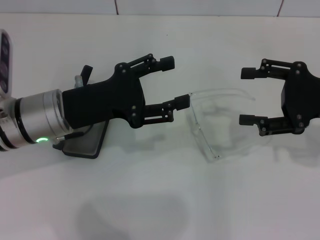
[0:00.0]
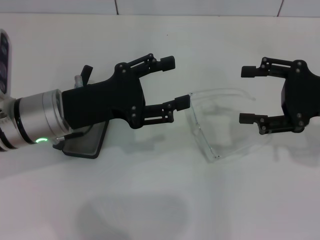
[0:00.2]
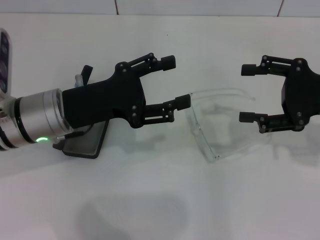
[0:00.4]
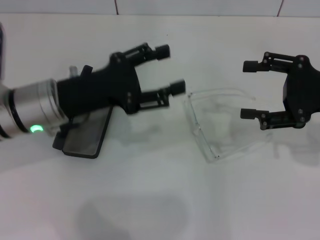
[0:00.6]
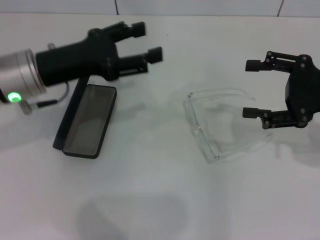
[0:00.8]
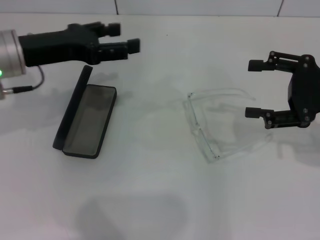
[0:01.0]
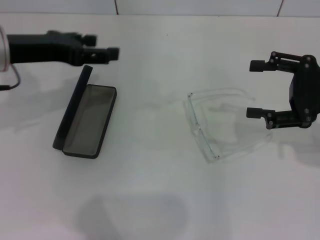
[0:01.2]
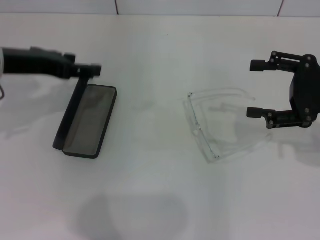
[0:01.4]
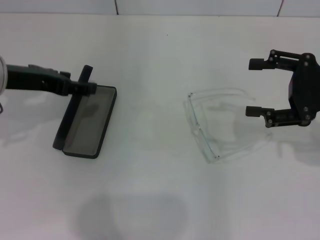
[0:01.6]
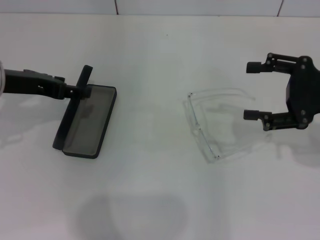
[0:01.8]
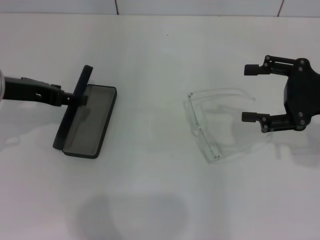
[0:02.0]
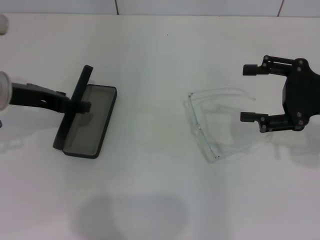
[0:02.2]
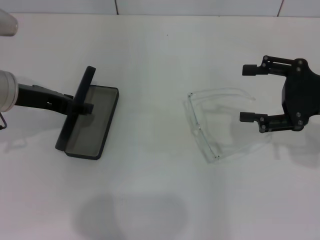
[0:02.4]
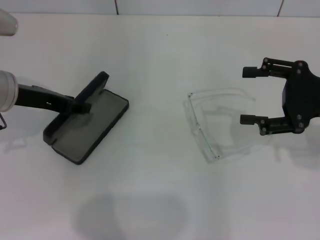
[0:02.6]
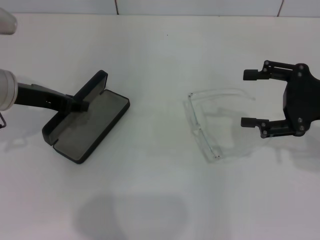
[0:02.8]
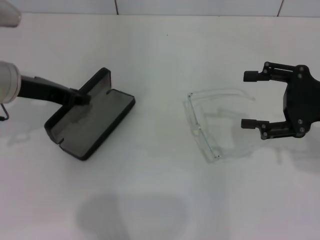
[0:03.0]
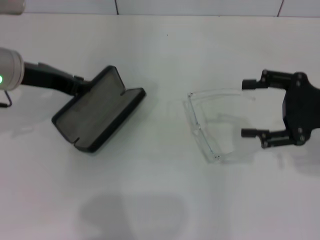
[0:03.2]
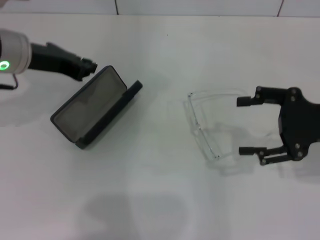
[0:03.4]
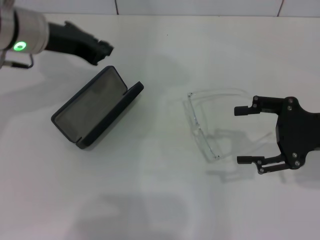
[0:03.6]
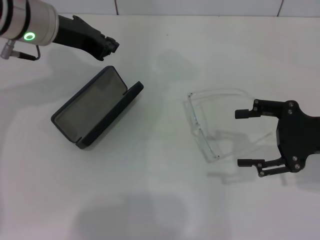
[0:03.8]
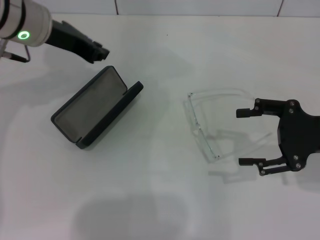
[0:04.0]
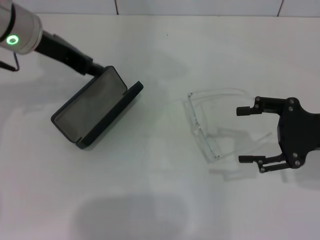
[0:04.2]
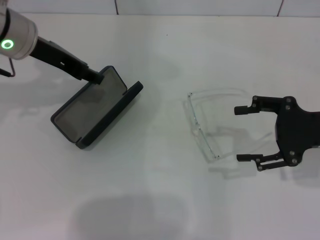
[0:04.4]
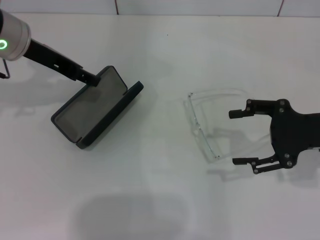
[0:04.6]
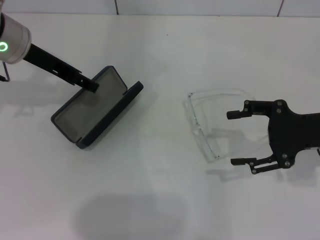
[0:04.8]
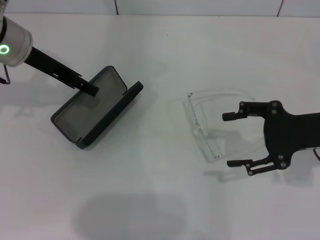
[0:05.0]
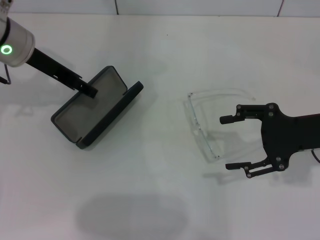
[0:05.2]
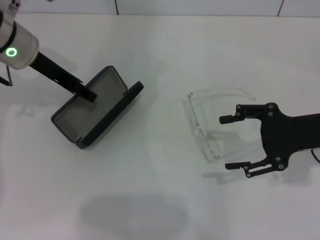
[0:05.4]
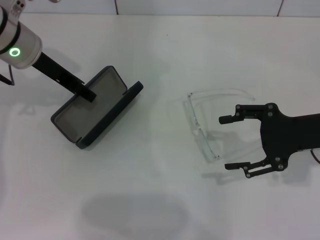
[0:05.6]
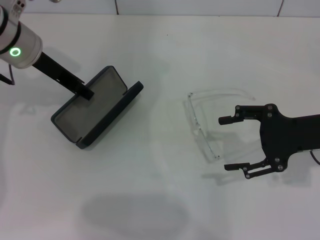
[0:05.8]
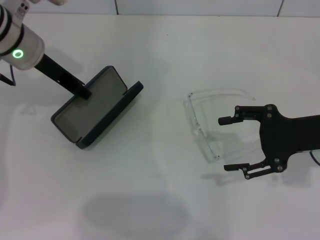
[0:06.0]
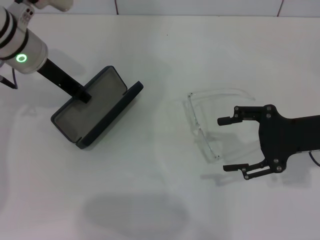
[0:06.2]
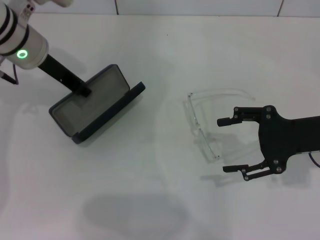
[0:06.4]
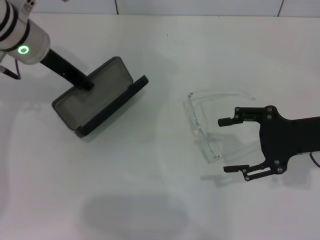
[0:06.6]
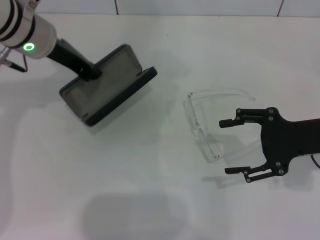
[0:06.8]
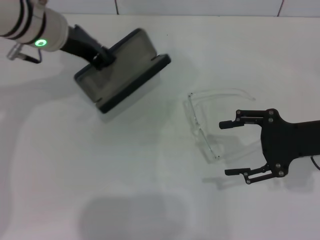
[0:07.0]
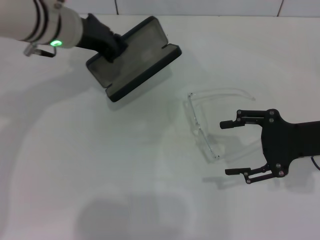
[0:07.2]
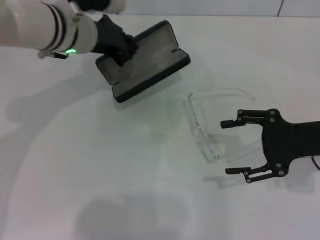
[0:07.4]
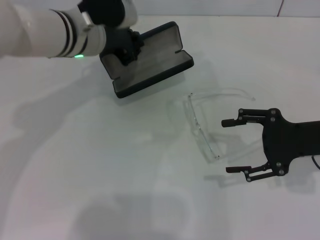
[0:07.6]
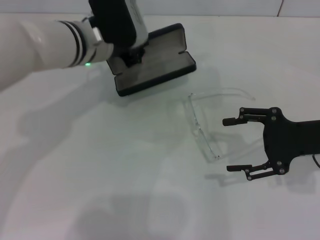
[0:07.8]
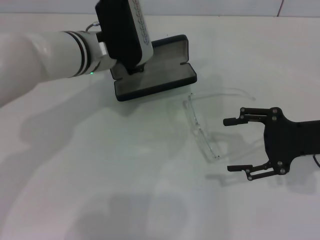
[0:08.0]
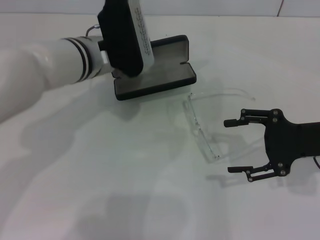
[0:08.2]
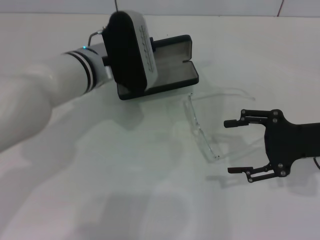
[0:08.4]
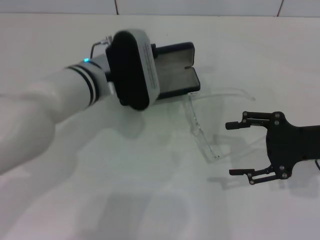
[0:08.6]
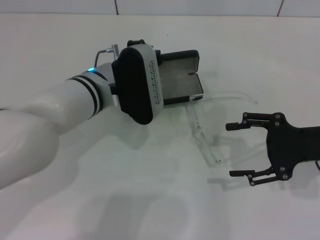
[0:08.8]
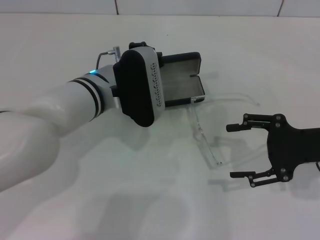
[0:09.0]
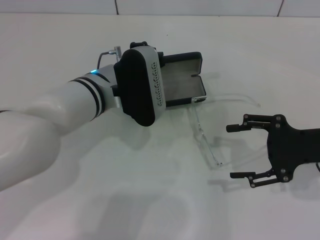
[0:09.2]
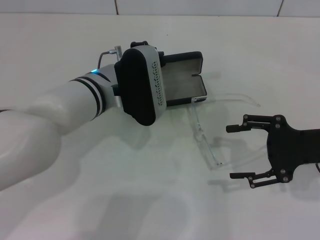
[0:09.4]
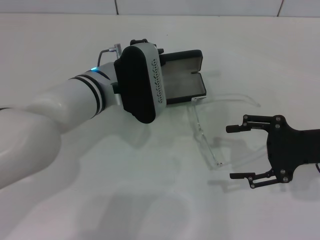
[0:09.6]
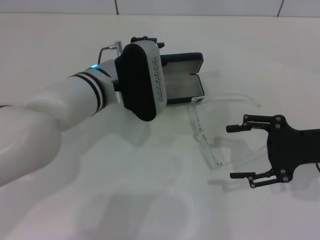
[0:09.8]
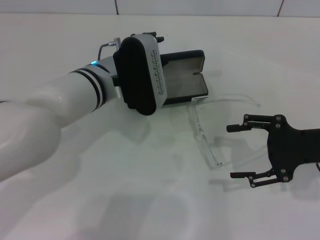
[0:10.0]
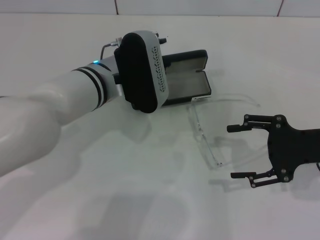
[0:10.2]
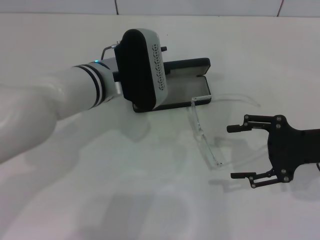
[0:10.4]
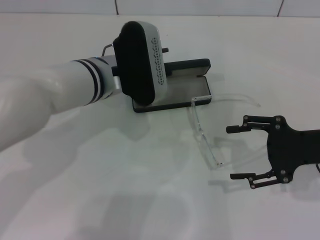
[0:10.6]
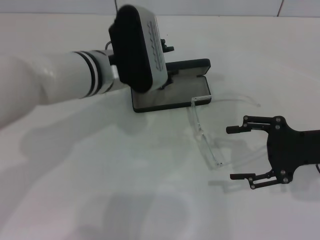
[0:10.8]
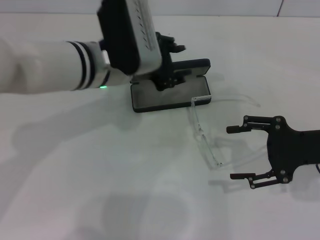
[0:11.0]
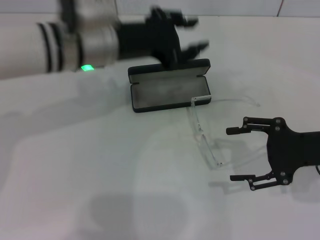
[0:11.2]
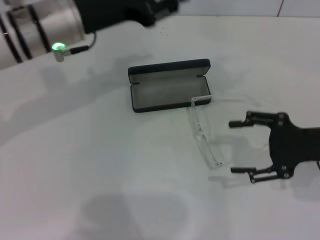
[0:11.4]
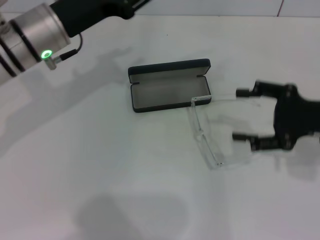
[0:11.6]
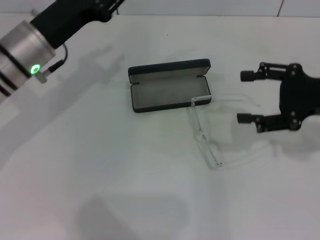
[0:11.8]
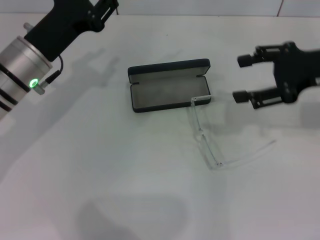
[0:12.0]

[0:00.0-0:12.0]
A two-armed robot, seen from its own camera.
Step, 0:00.0 to 0:06.4: Grab the glasses case with your left hand.
Step, 0:06.8 to 0:10.6: Place the glasses case in the center of the table with your left hand.
0:00.0 to 0:01.6: The left gripper goes some 10 cm to the left and upward.
0:01.6 to 0:03.0: The left gripper closes up.
0:03.0 to 0:04.4: The left gripper changes place by approximately 5 cm.
0:04.4 to 0:06.0: The left gripper opens, then closes again.
0:06.0 to 0:07.6: The left gripper moves to the right, some 10 cm.
0:07.6 to 0:09.0: The left gripper is displaced backward and downward by roughly 10 cm.
0:09.0 to 0:10.4: The left gripper opens its fingers.
0:10.4 to 0:12.0: The left gripper travels to the left by roughly 10 cm; the right gripper moves upward and forward, about 10 cm.

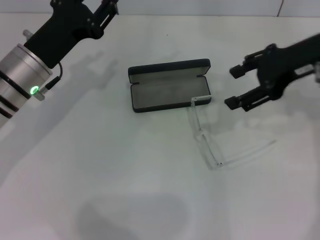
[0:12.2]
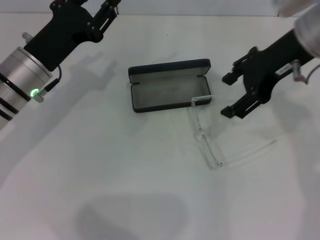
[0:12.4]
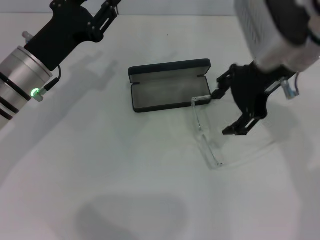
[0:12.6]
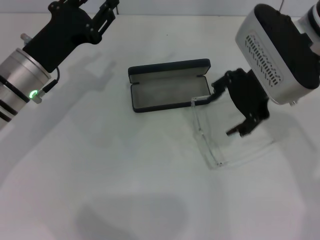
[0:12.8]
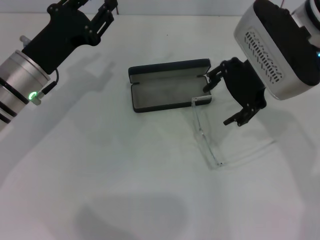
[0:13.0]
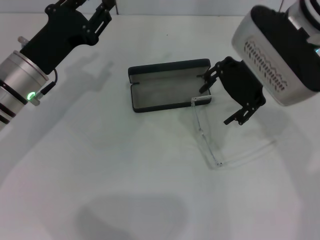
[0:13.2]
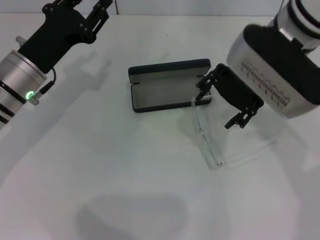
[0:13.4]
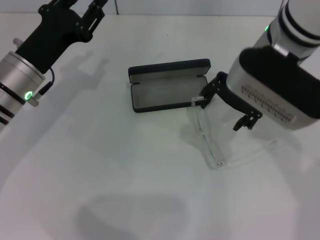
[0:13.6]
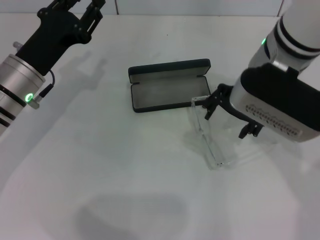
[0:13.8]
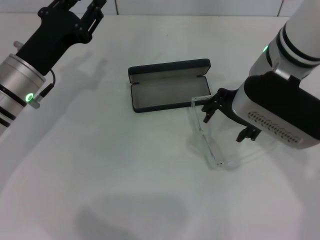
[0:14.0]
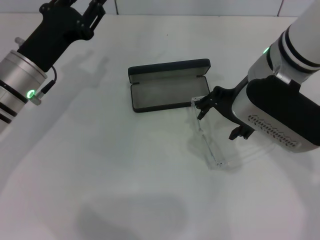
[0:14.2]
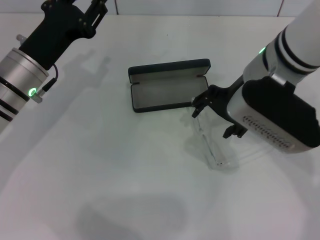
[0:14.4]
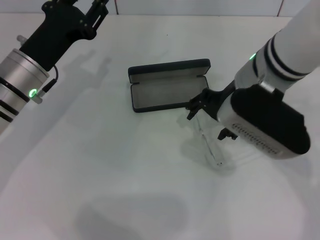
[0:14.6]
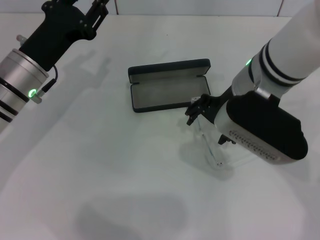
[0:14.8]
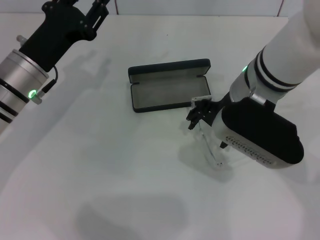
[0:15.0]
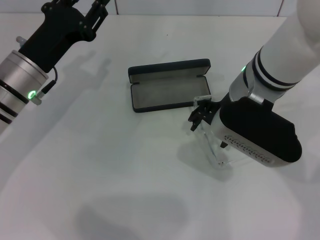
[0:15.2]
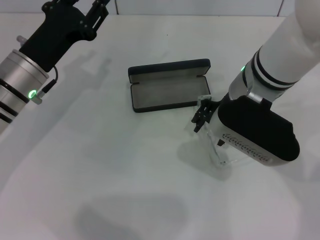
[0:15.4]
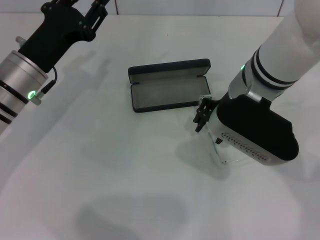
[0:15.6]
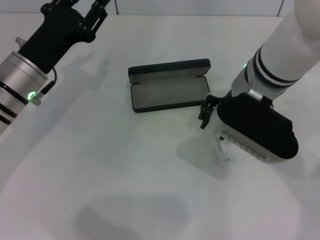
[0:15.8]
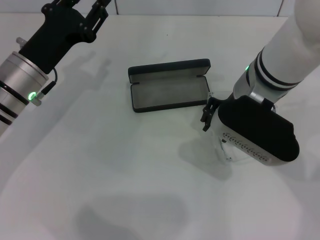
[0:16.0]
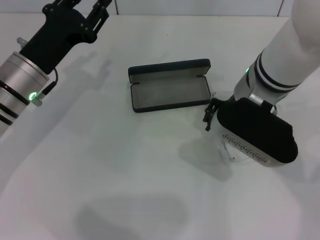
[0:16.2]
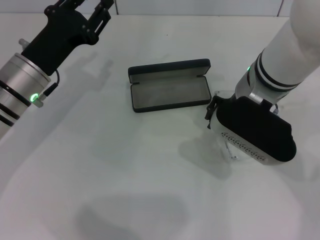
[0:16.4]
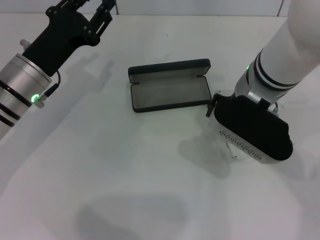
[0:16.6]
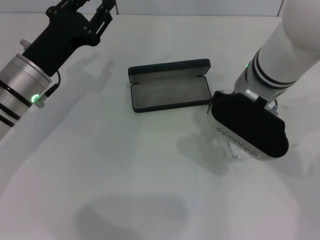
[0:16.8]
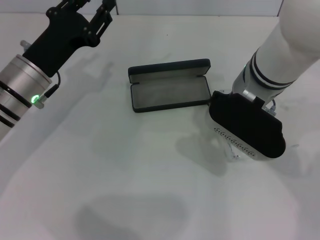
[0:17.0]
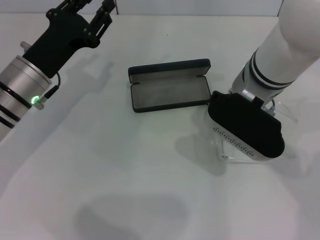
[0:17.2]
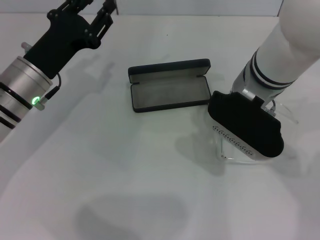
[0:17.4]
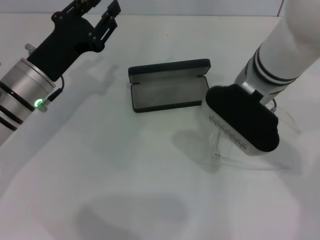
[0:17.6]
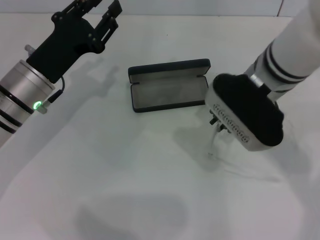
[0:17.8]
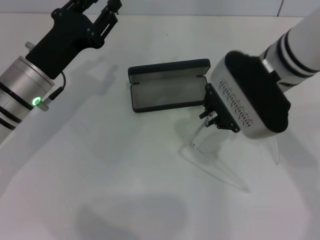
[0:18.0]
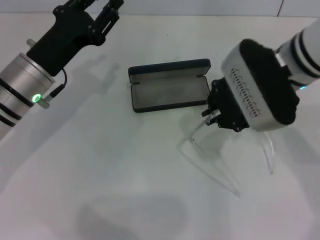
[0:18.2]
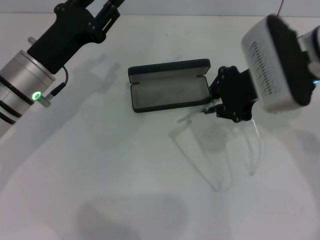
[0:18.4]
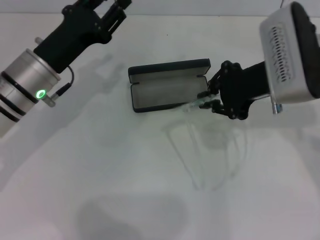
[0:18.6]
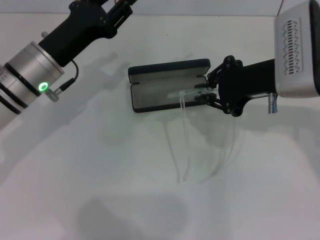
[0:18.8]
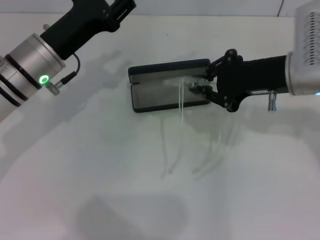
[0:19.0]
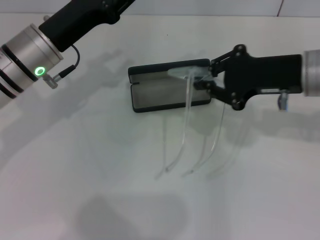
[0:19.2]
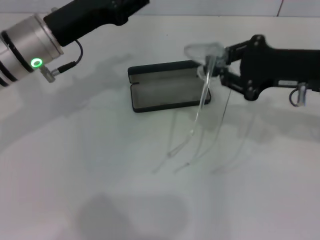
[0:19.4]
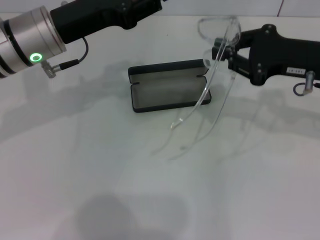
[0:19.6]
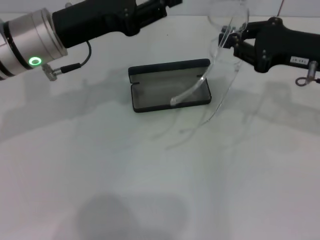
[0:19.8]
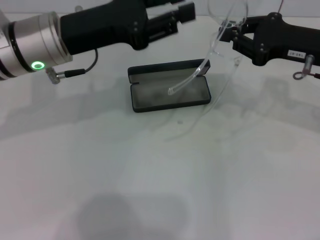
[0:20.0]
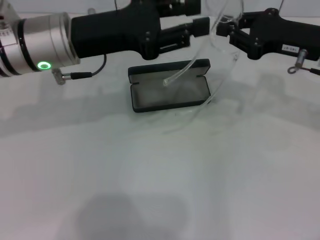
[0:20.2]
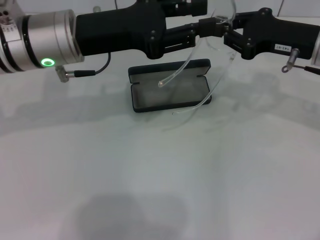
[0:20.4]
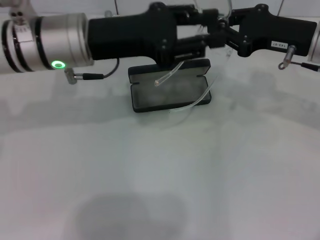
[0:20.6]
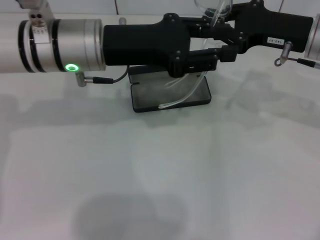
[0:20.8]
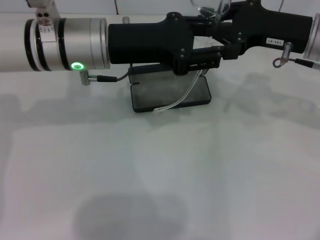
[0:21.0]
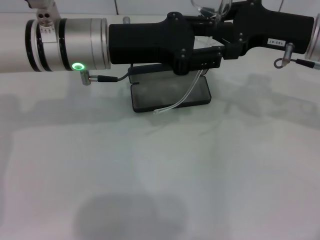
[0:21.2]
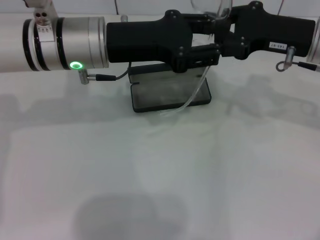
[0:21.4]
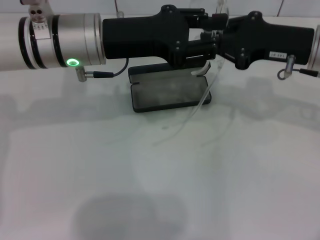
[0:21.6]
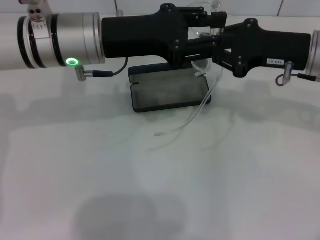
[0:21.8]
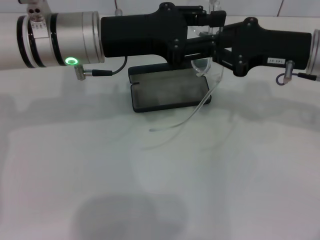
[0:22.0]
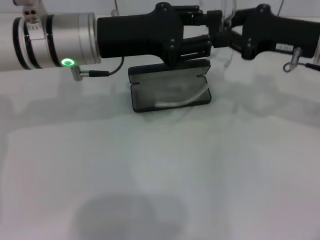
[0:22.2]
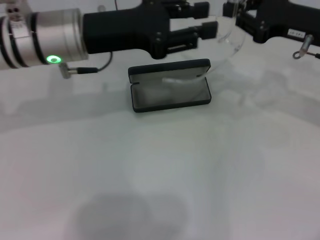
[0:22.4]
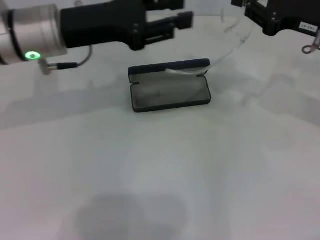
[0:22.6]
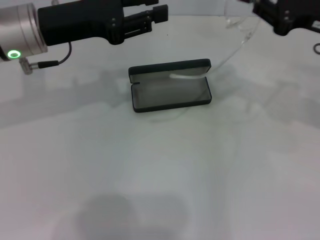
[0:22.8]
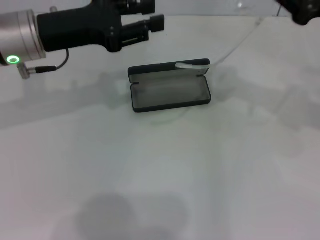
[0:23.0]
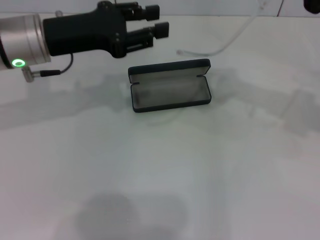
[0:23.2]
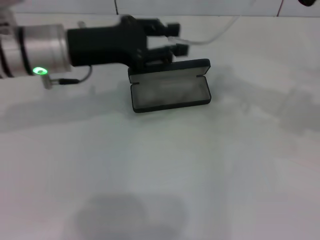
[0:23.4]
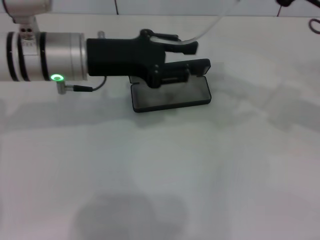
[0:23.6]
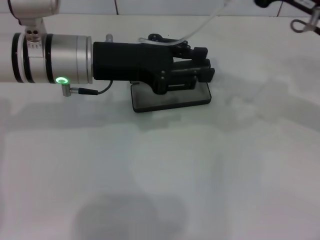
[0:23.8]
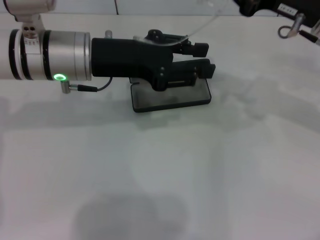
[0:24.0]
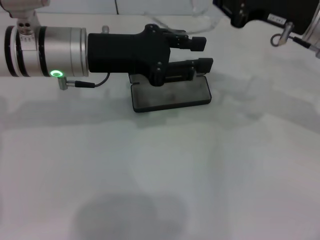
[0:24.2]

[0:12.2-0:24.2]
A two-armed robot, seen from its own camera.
Step, 0:12.2 to 0:17.2: Grab the eyeglass frame with your right hand.
0:12.2 to 0:13.8: The right gripper heads to the left, covering approximately 10 cm.
0:13.8 to 0:15.2: The grippers move only a little.
0:15.2 to 0:16.6: The right gripper closes its fingers.
0:16.6 to 0:18.2: The right gripper closes.
0:18.2 to 0:19.8: The right gripper goes about 10 cm to the right; the left gripper heads upward, covering about 5 cm.
0:19.8 to 0:21.2: The left gripper travels to the right by roughly 5 cm.
0:21.2 to 0:22.6: The left gripper travels to the left by about 5 cm.
